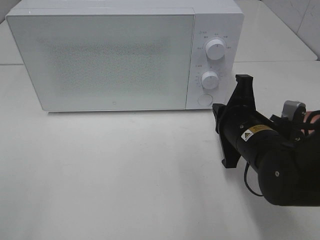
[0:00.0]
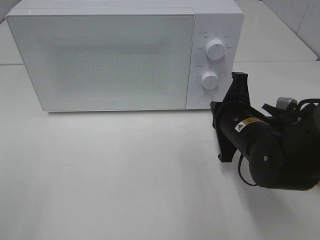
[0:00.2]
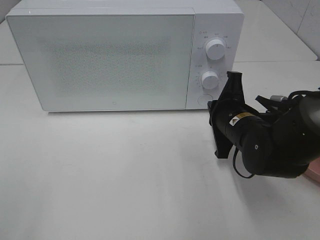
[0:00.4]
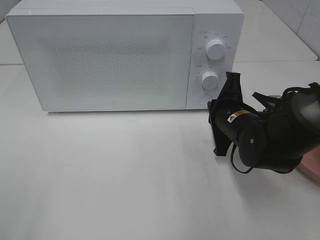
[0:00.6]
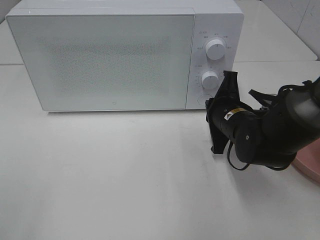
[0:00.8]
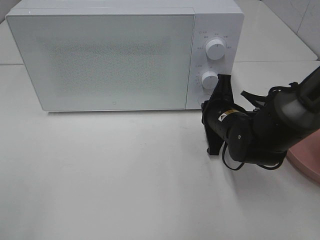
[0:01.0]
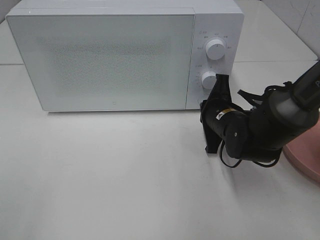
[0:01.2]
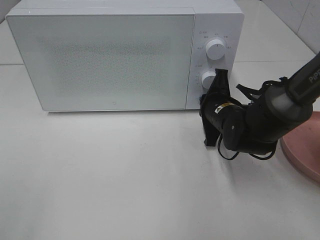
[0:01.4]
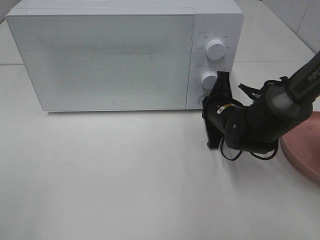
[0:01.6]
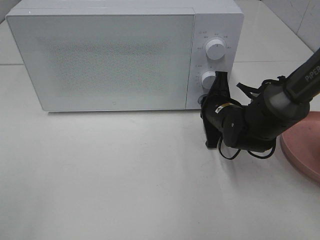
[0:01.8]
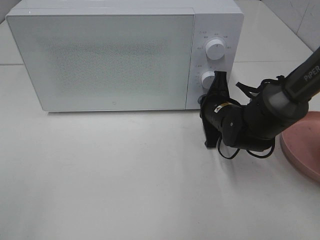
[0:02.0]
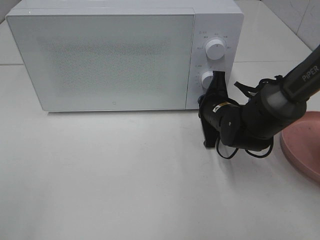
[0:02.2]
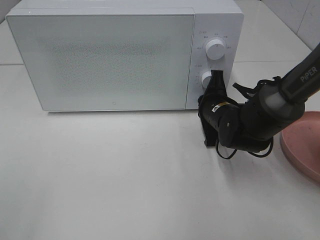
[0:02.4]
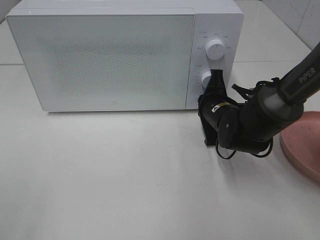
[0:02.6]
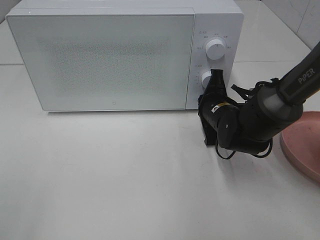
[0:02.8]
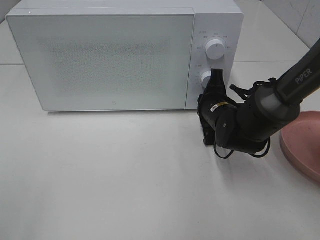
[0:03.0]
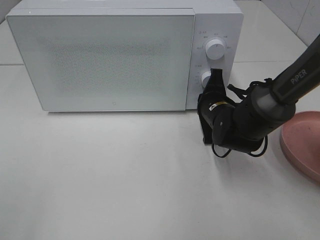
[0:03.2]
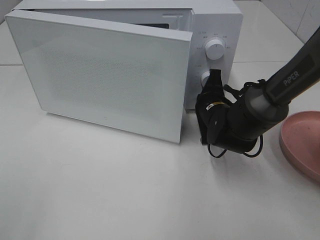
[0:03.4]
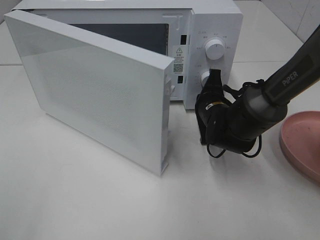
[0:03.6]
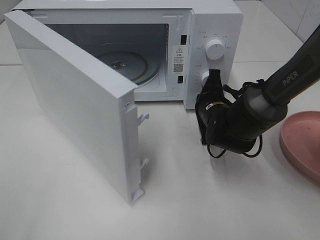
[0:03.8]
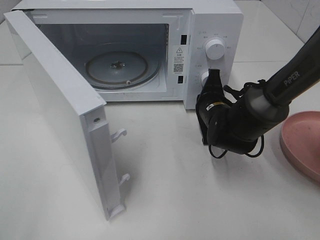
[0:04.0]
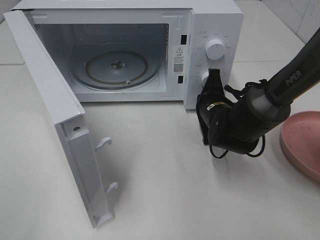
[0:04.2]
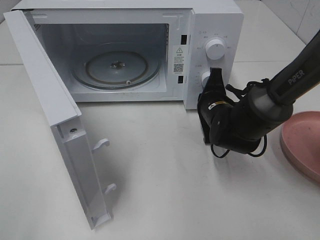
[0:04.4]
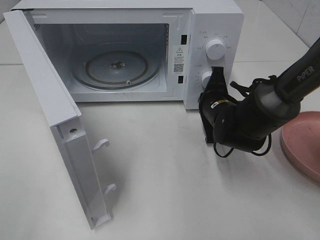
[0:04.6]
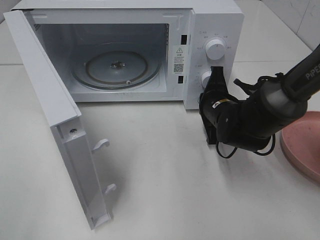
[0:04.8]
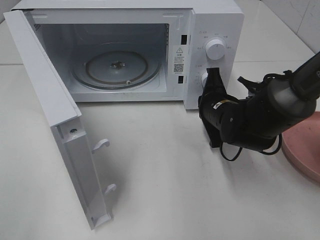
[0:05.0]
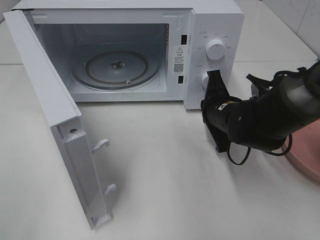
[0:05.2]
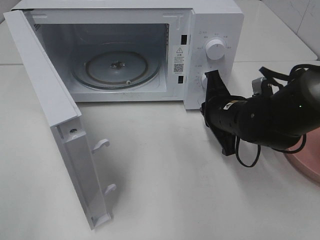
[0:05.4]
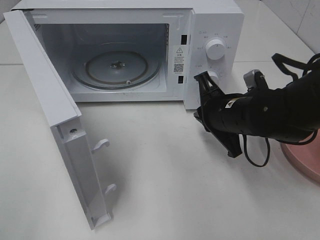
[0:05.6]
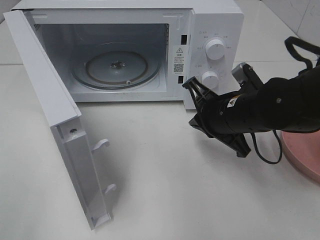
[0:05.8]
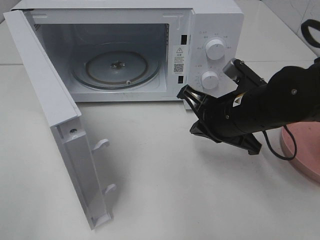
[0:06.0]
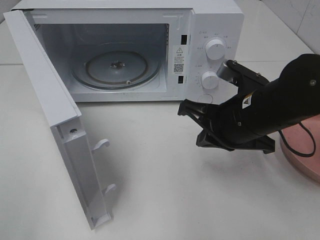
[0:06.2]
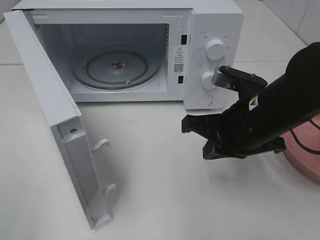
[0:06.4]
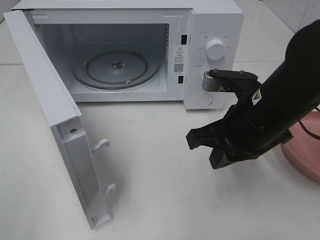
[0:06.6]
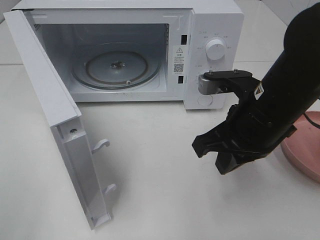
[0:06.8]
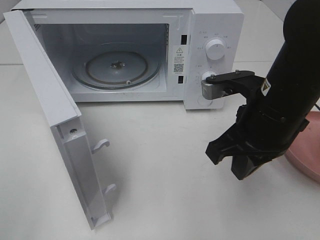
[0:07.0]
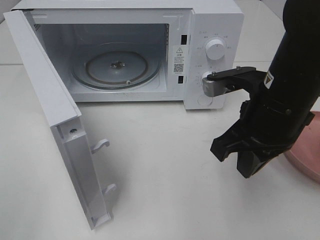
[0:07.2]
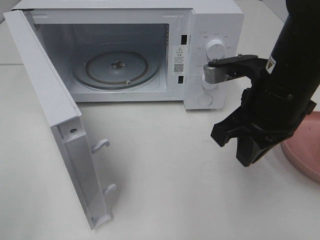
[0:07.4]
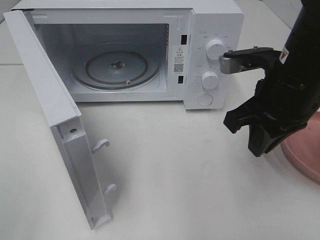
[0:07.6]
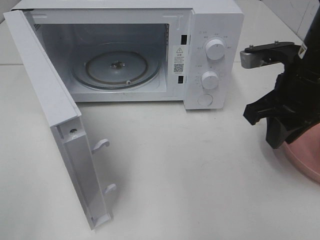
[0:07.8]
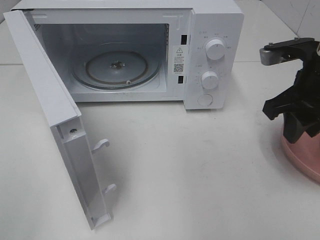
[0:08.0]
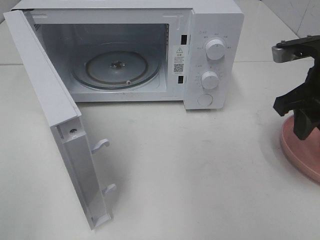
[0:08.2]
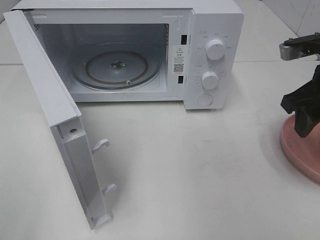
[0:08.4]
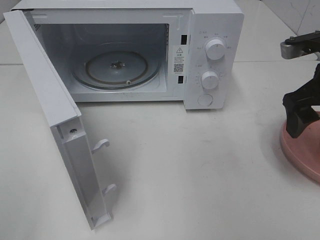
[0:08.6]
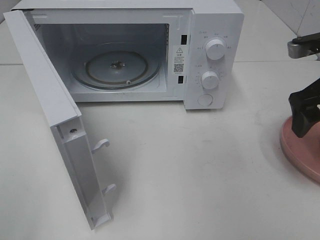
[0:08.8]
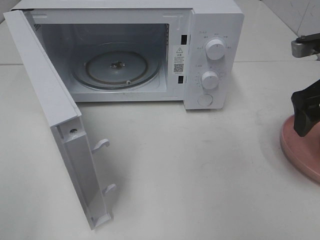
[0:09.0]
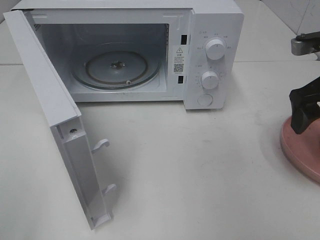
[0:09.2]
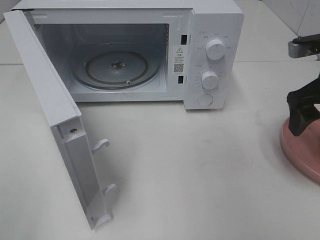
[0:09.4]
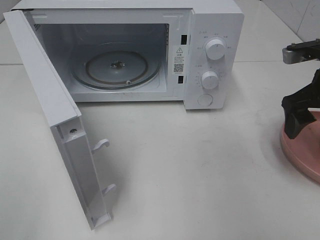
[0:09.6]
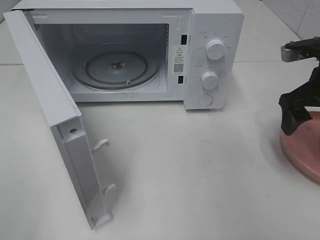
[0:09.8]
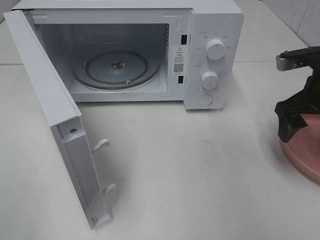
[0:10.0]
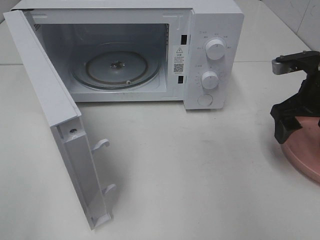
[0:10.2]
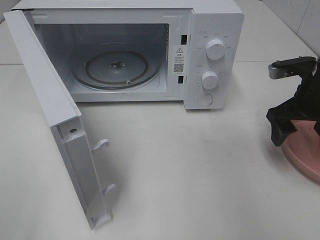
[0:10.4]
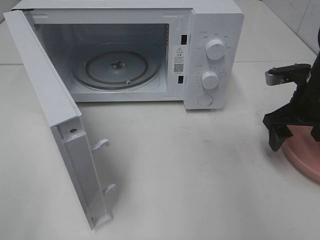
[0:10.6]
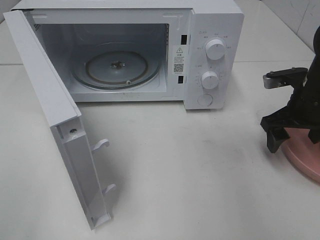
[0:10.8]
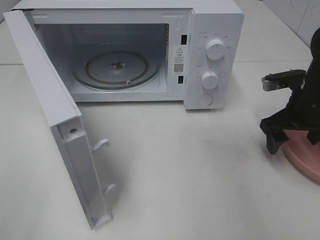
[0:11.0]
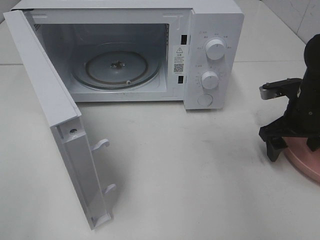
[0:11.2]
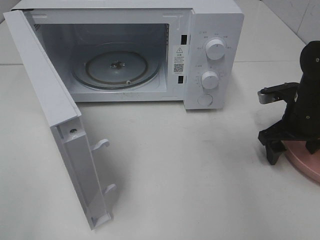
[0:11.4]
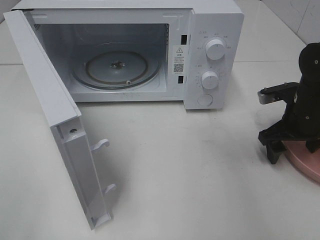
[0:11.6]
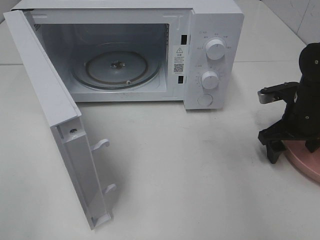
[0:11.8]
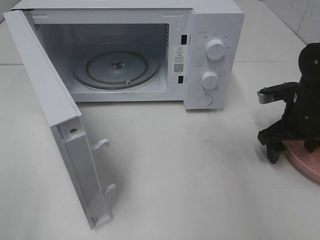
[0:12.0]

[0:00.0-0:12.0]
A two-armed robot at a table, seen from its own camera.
Task of the whole recording: Heat the burger.
Step, 0:00.0 to 0:05.2: Right hand: press the switch.
0:00.0 to 0:01.6: The right gripper moves forward, some 10 cm.
0:01.6 to 0:03.0: Both grippers stay about where they are.
0:04.4 to 0:06.0: The right gripper is displaced backward and upward by approximately 10 cm.
0:06.0 to 0:07.6: The right gripper travels upward by some 10 cm.
0:07.6 to 0:09.0: The right gripper shifts some 10 cm to the right, and opens its fingers.
0:09.0 to 0:10.4: The right gripper travels downward by roughly 5 cm.
0:10.4 to 0:12.0: The right gripper heads downward, covering some 5 cm.

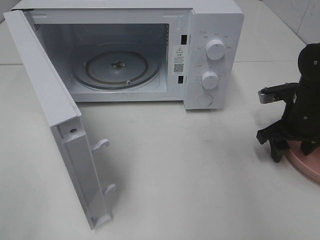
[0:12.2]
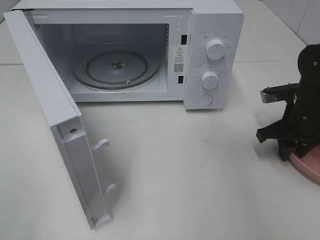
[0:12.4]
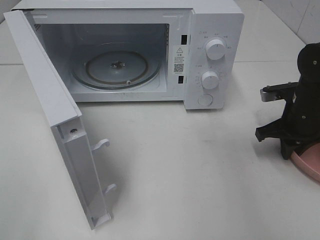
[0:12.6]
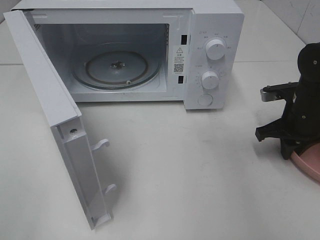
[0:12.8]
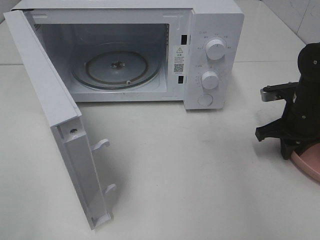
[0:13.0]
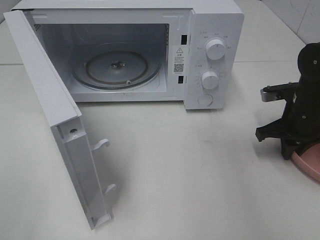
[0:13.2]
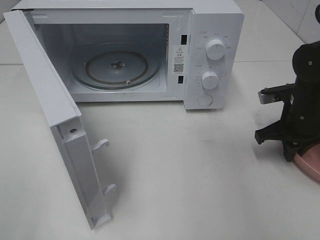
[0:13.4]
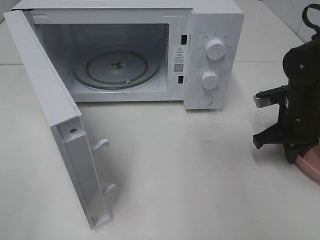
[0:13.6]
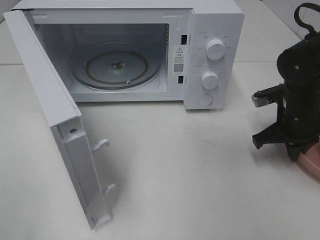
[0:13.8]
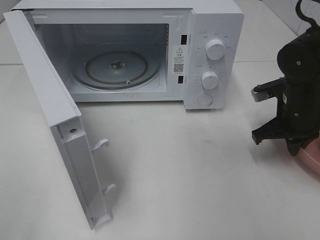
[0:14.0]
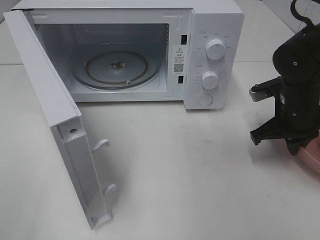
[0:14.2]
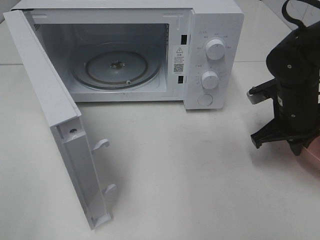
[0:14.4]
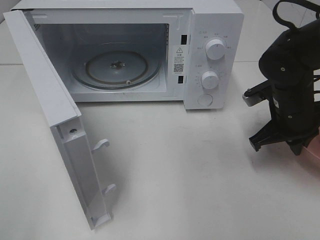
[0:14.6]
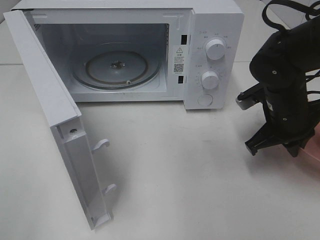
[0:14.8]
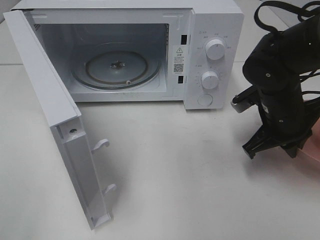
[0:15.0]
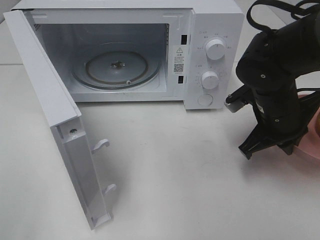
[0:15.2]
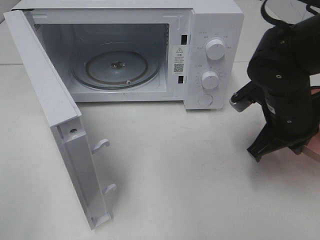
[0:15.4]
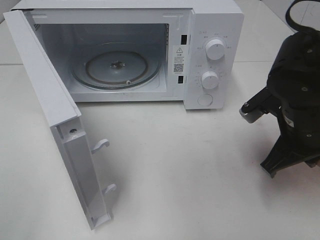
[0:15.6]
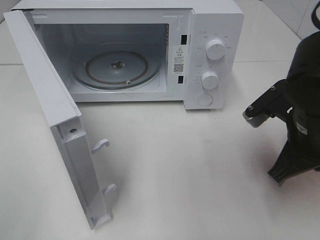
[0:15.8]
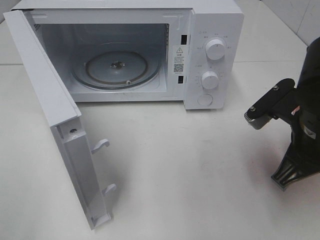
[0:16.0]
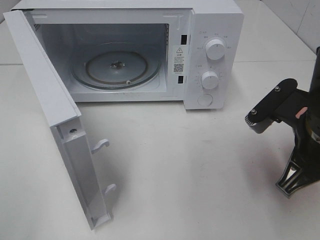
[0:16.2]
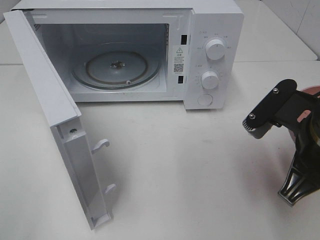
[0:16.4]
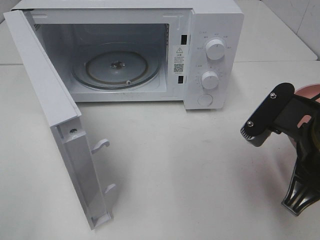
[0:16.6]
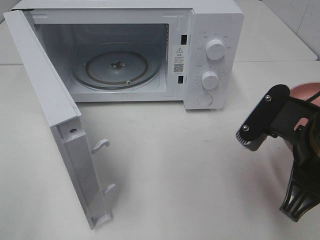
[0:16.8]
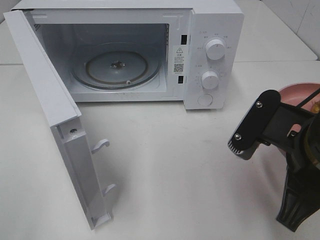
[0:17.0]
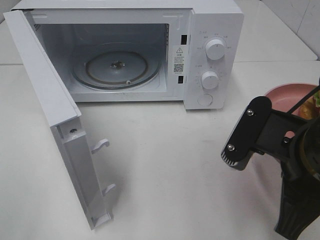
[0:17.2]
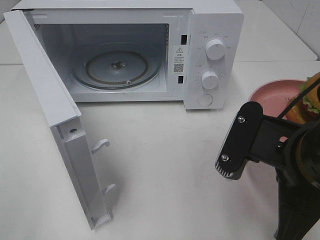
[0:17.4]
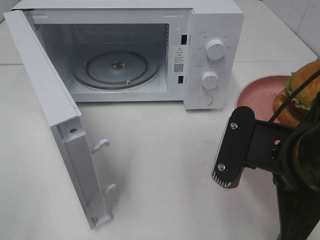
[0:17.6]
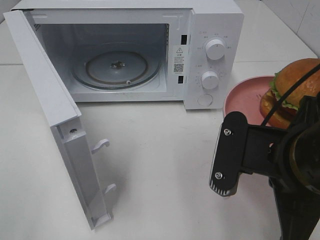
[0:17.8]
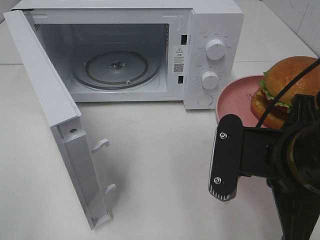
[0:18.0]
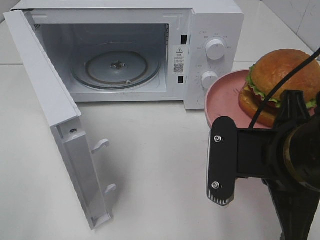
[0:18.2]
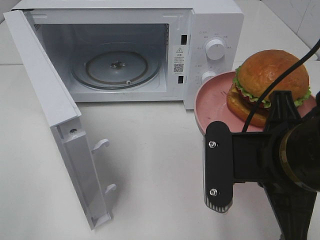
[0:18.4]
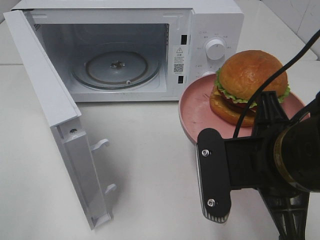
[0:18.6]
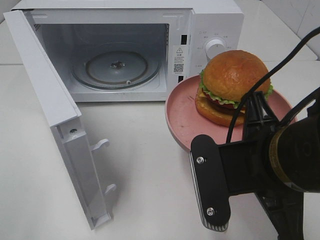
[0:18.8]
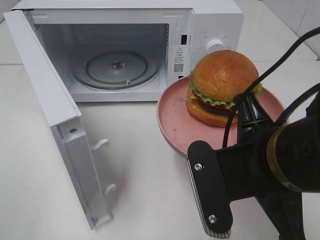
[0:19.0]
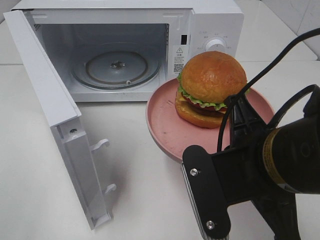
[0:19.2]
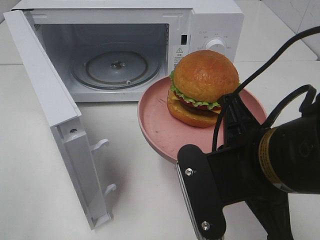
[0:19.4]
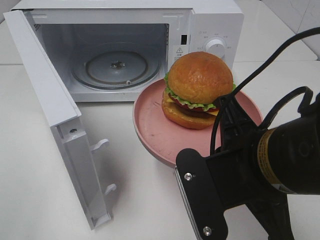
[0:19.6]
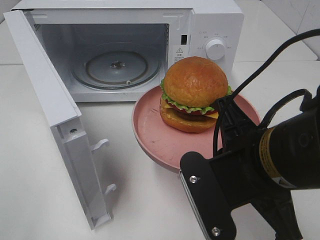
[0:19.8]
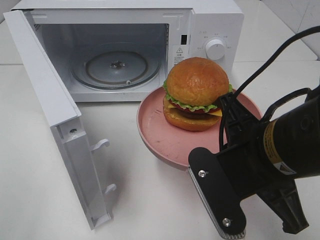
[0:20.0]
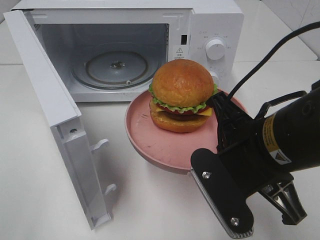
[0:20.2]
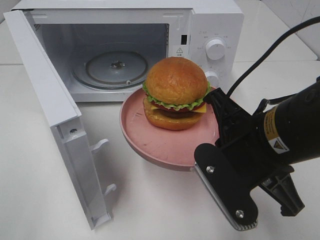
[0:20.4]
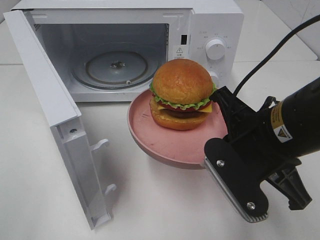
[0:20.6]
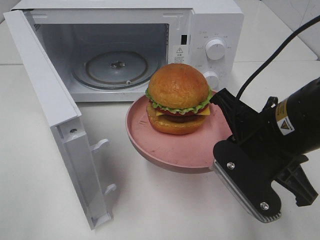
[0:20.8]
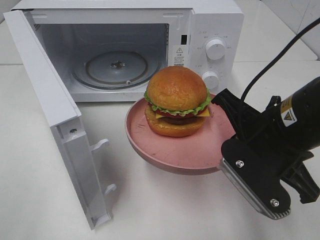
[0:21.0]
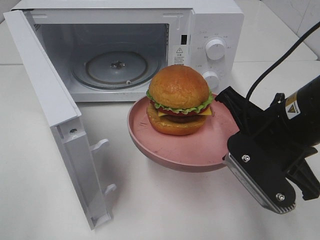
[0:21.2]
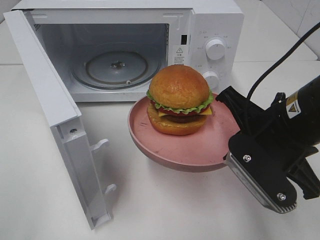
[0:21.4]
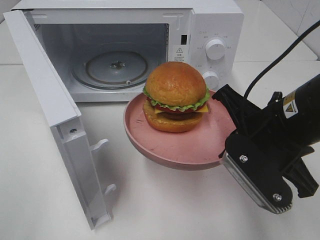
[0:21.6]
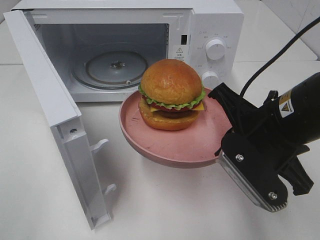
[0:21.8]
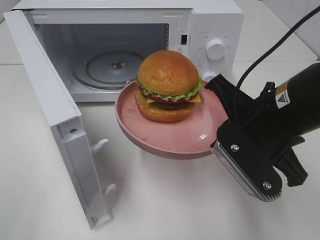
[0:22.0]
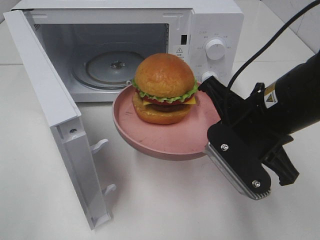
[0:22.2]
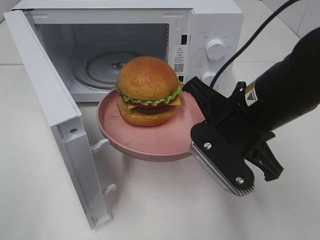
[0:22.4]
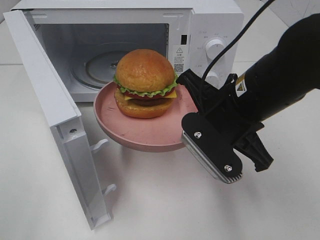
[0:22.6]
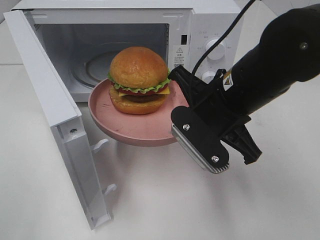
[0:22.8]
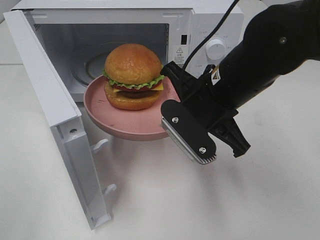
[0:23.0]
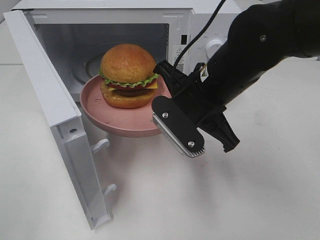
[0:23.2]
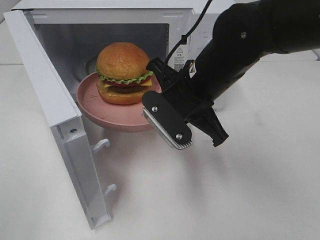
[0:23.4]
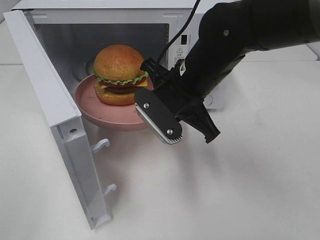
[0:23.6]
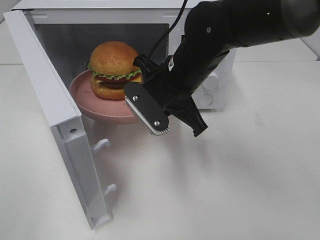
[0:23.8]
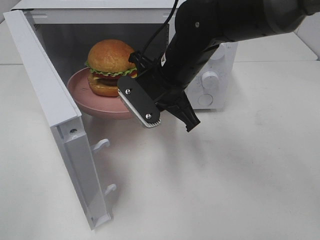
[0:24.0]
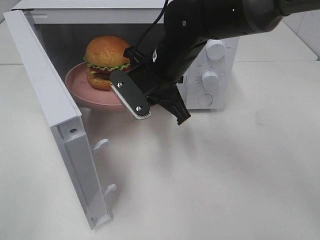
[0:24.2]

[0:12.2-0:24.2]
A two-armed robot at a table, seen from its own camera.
Task of the whole recording: Heat the burger.
0:12.2 to 0:13.8: The right gripper closes its fingers.
0:13.8 to 0:15.2: The right gripper heads to the left, covering roughly 5 cm.
0:15.2 to 0:16.6: The right gripper travels backward and upward by some 15 cm.
0:16.6 to 0:18.2: The right gripper moves some 5 cm.
0:19.8 to 0:21.2: The right gripper is displaced forward by about 5 cm.
0:21.2 to 0:22.6: The right gripper shifts by approximately 5 cm.
0:22.6 to 0:24.2: The right gripper heads forward and to the left, covering some 15 cm.
